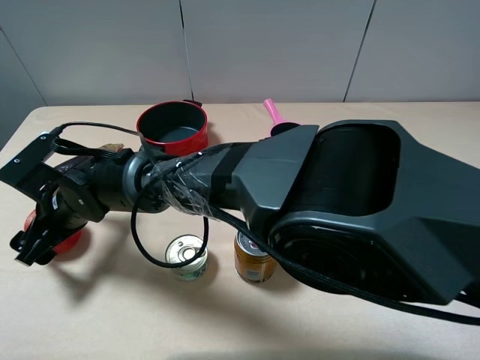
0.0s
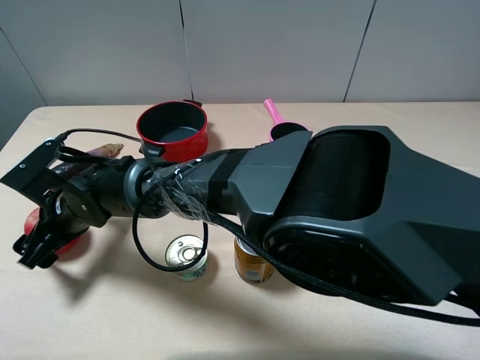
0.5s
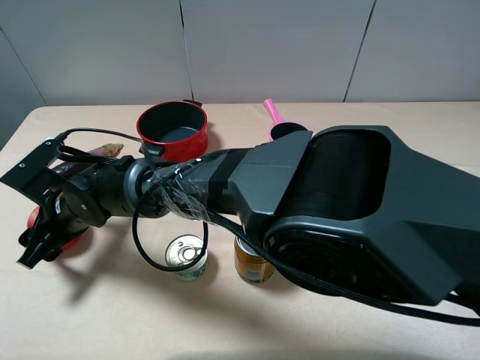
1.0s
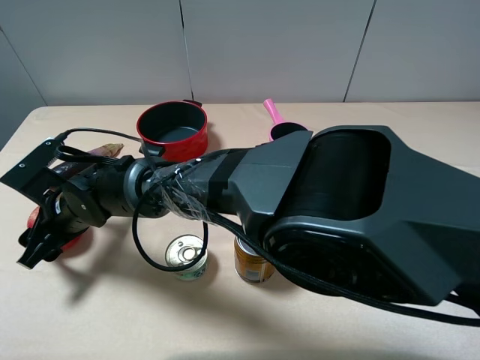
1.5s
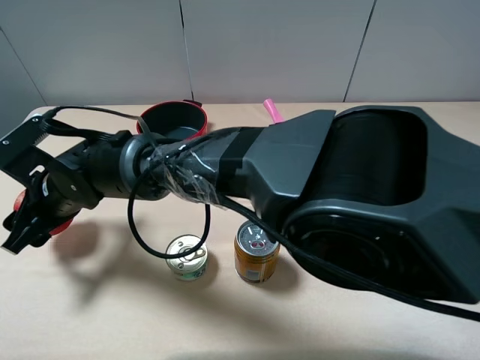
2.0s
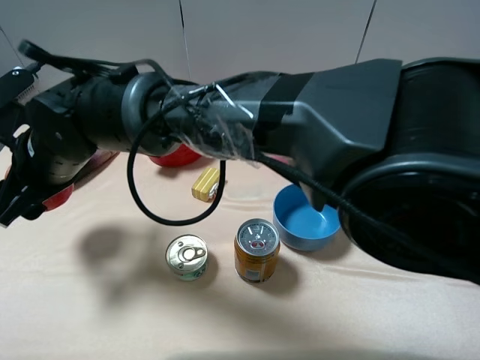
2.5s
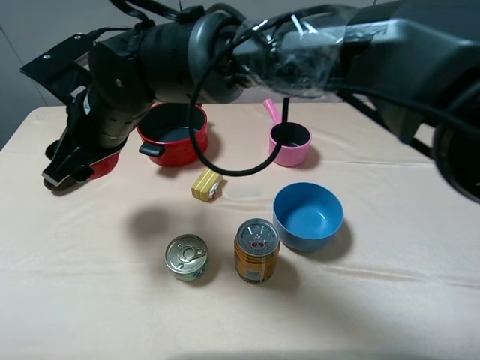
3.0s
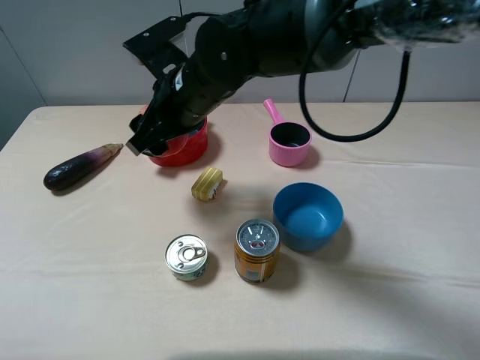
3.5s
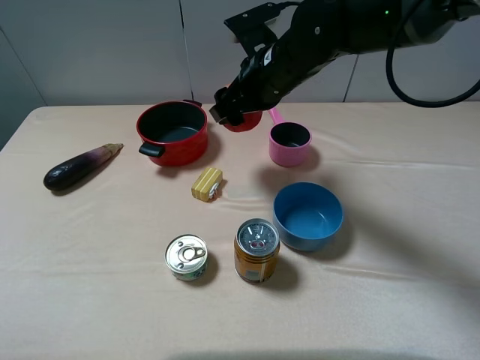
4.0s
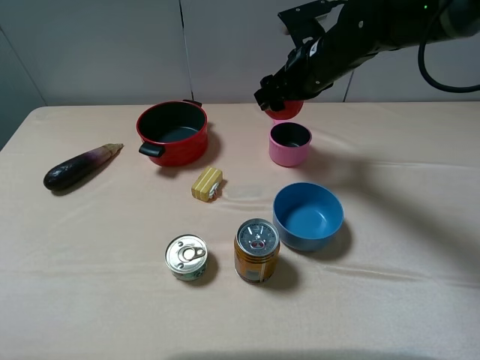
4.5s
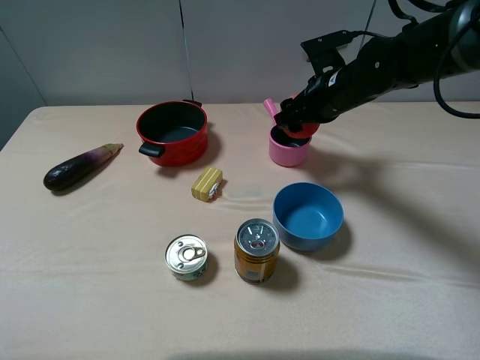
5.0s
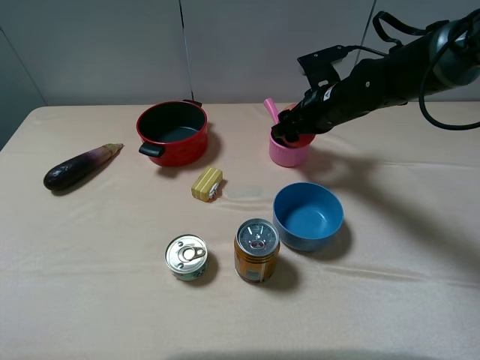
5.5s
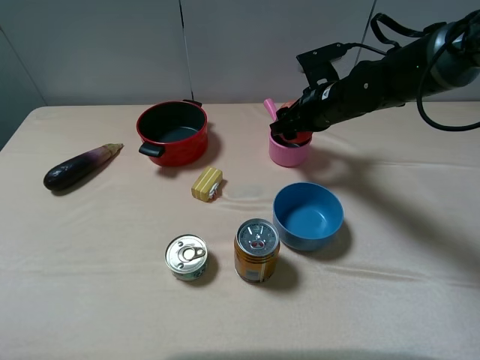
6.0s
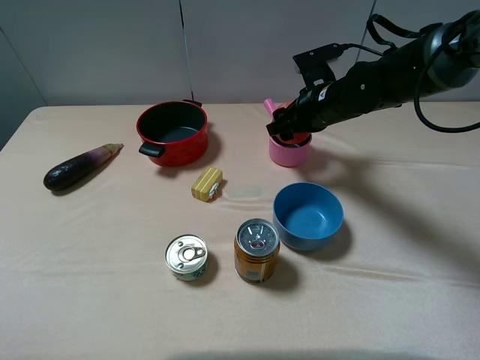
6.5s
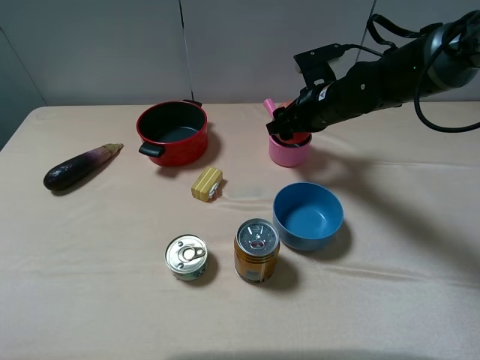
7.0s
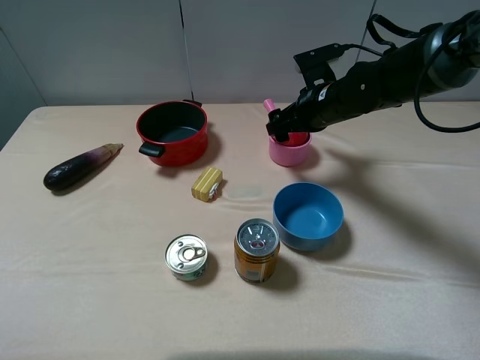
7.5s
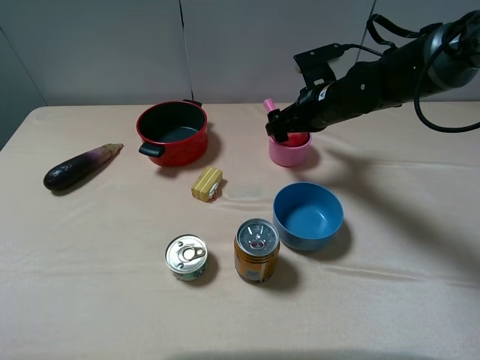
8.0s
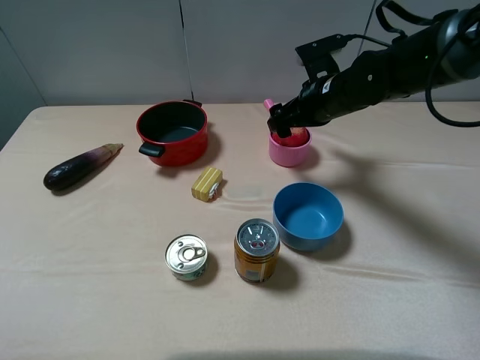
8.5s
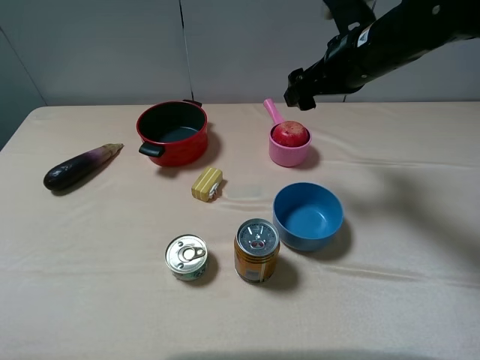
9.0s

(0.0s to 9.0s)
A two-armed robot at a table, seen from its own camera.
Task of the whole recording: pick up an item with a gripper and place it in a random container on the table.
Step, 1.5s - 8.0s: Place the apple into the pink pot with the right gripper.
0.0s - 2.0s: The right gripper closes its fingers.
2.0s - 4.5s: The right gripper goes roughly 35 cm to the right and forward.
4.5s - 7.0s: The right gripper travels downward by roughly 5 cm.
7.0s - 9.0s: The right gripper goes roughly 10 cm upward, and opens up.

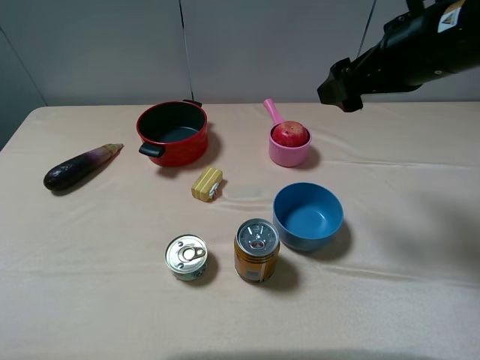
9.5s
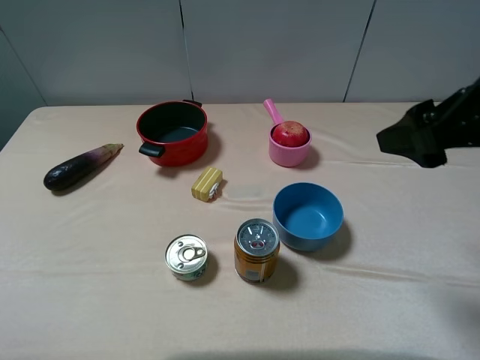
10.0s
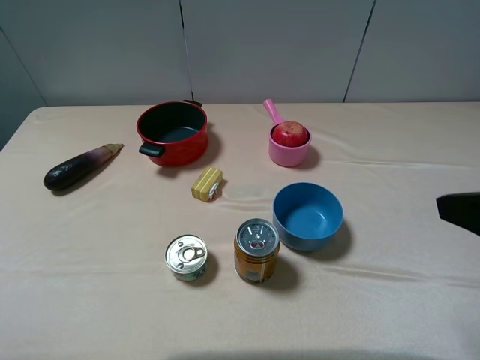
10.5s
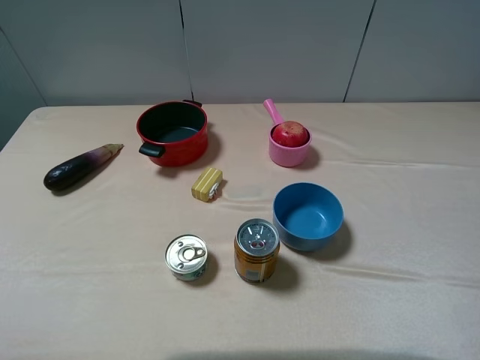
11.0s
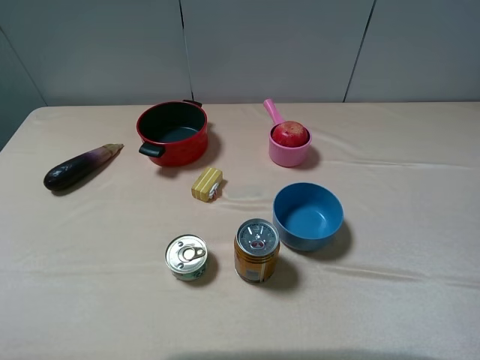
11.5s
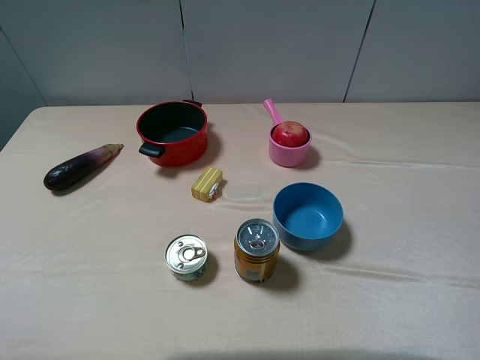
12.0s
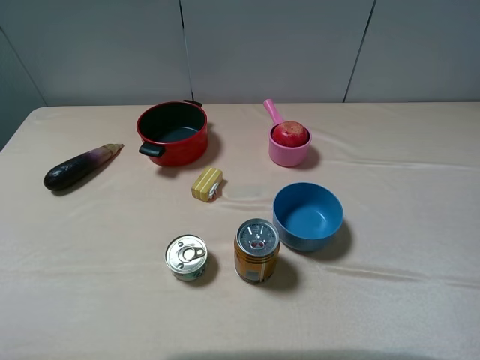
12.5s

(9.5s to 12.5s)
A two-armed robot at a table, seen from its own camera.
Task of the whole recording: pick up an item with a gripper and place it in a random container on the table.
9.5s - 11.0s: The right gripper moves backward and to the right, roughly 25 cm.

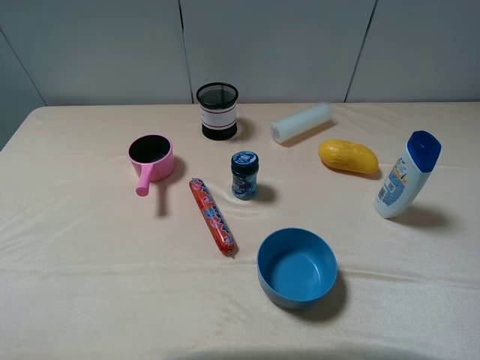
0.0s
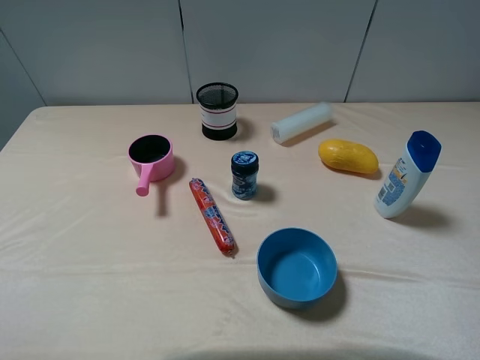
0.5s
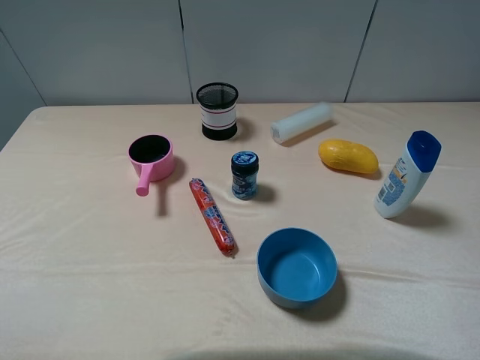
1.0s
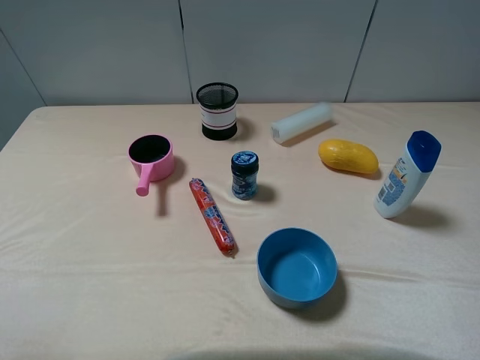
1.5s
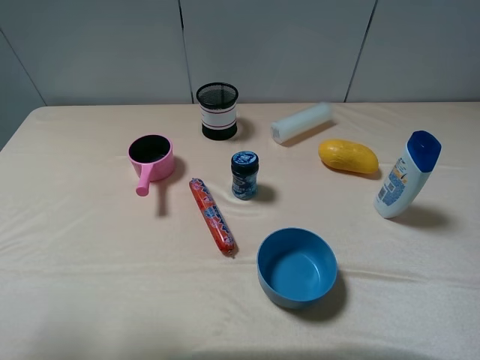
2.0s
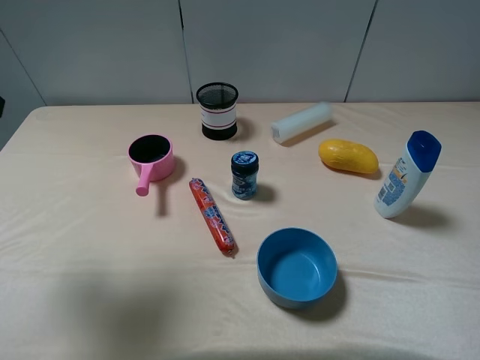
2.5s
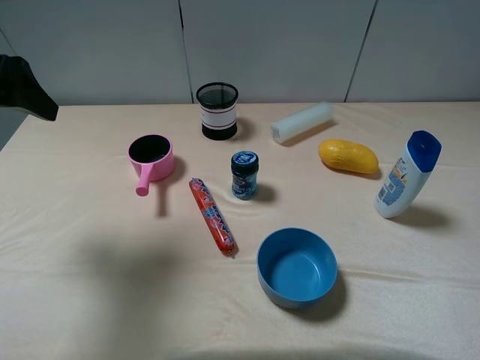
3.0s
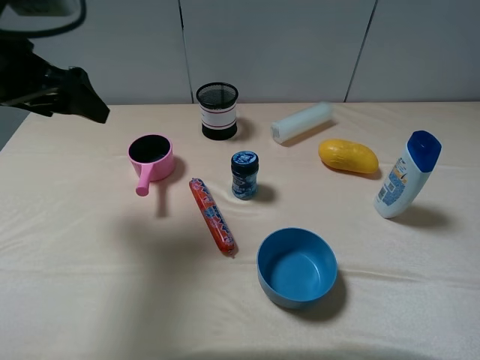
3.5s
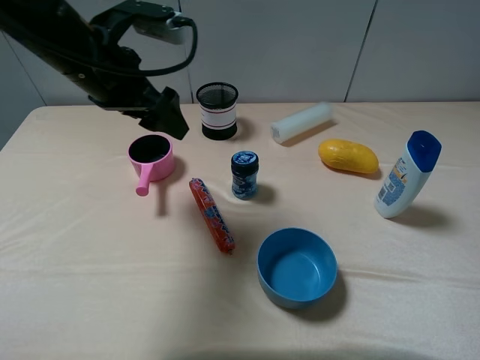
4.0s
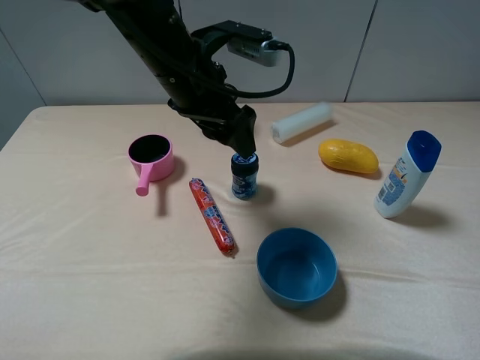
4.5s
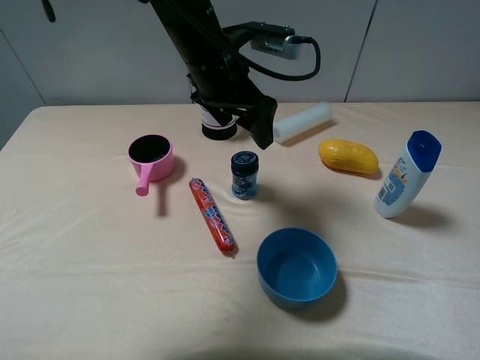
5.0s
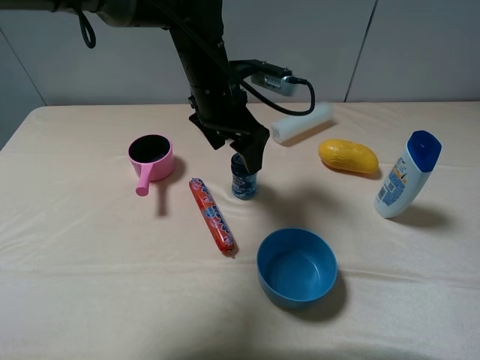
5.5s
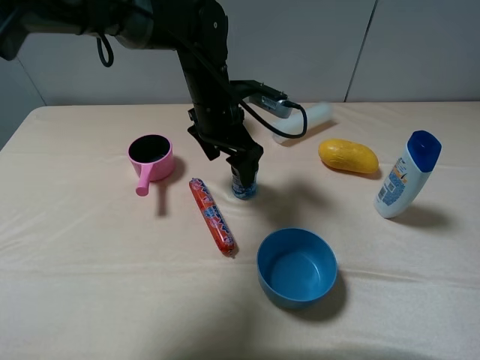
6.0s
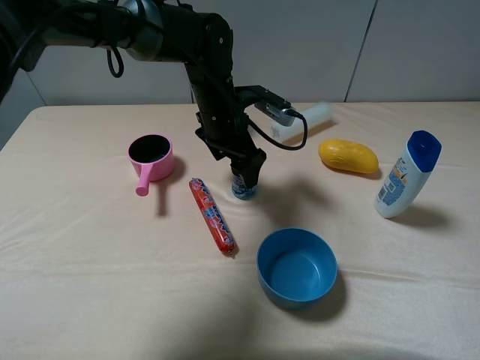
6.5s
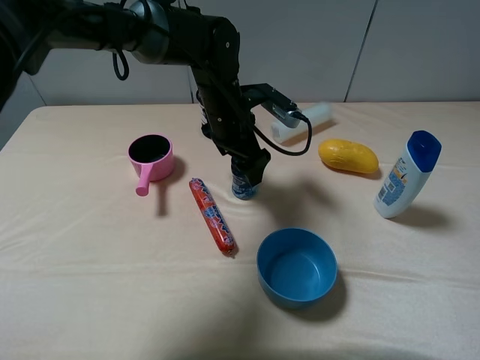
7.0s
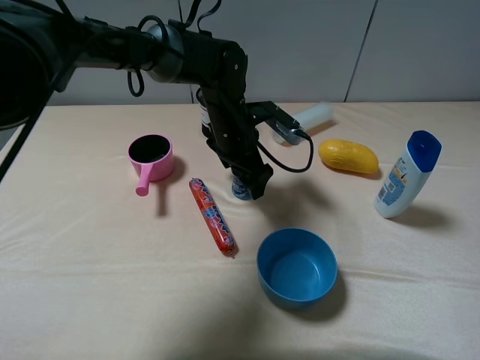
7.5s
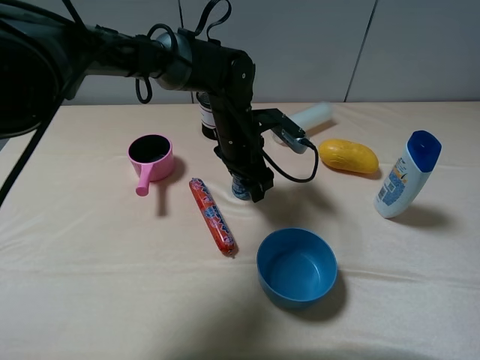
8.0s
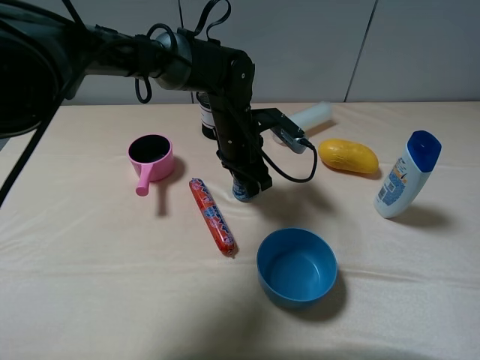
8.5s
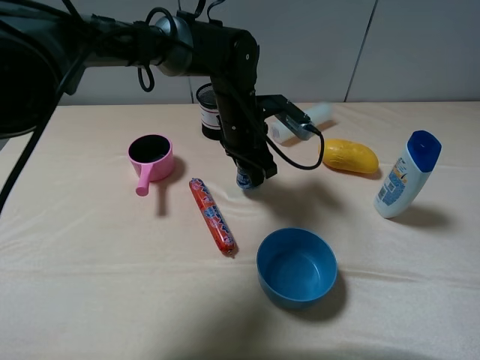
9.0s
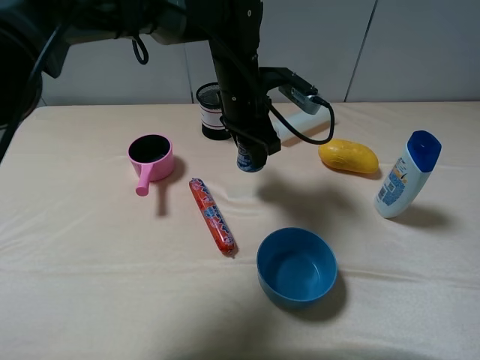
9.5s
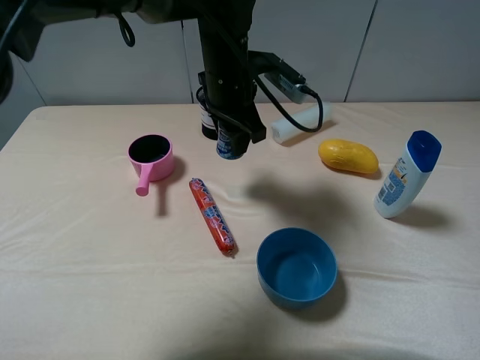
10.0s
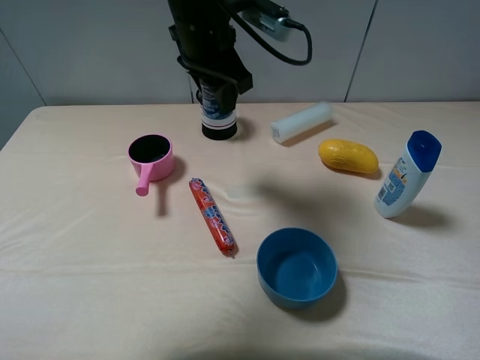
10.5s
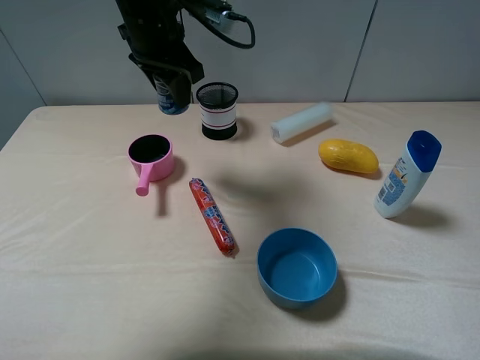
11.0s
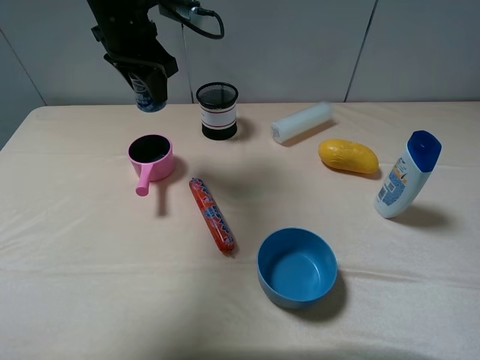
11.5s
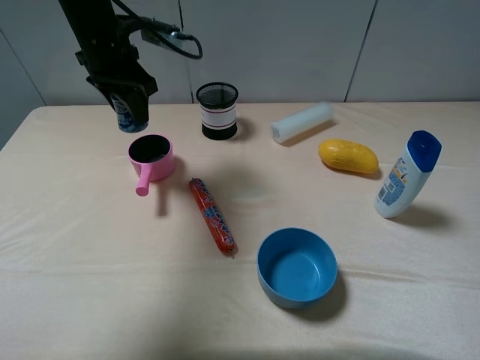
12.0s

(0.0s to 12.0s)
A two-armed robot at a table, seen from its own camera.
Task of the whole recording: pick up an item with a gripper and place it in a random container on the table.
Step, 0.0s - 8.5s: Grasp the round chewing gum with the left gripper.
0.0s - 2.0s: The left gripper heads forward and upward, covering approximately 10 cm.
2.0s - 4.0s: The left gripper moves forward, to the right and downward, roughly 25 cm.
4.0s - 6.0s: The left gripper goes about 15 cm to the right, downward and forward.
6.0s - 8.0s: The left gripper is displaced downward by some 5 cm, and closes.
8.0s - 10.0s: The left gripper is displaced upward by roughly 10 cm, and closes.
10.0s - 12.0s: The left gripper heads to the left, covering approximately 15 cm.

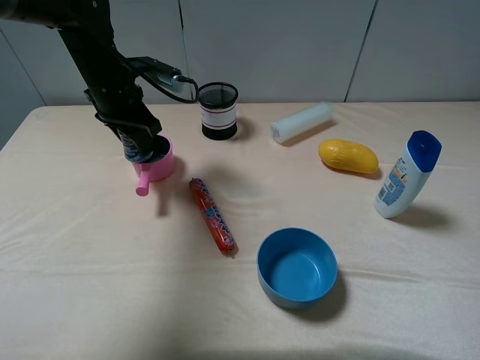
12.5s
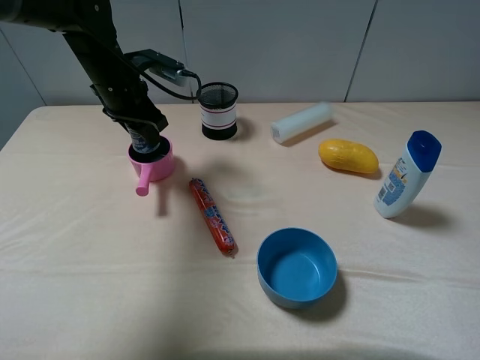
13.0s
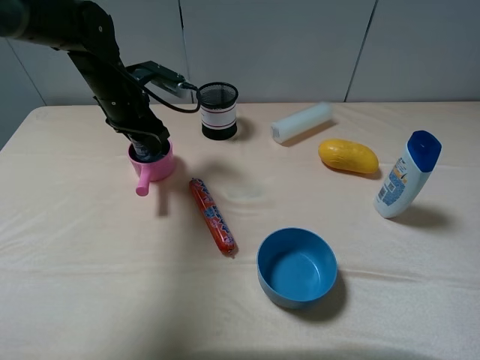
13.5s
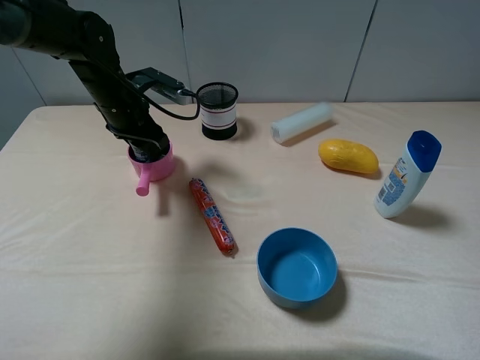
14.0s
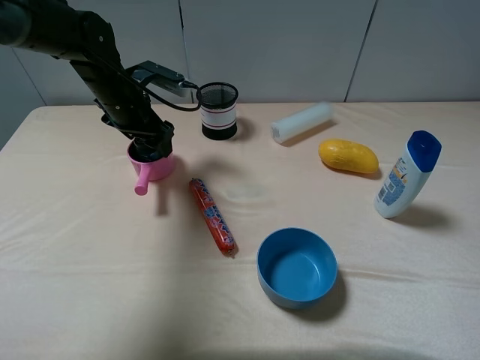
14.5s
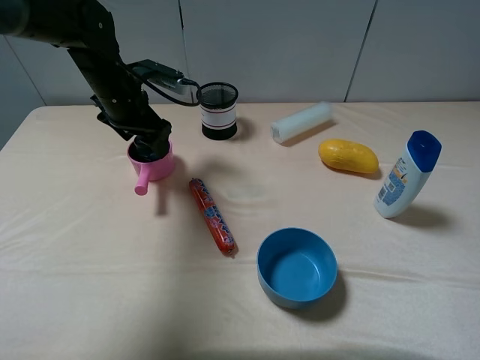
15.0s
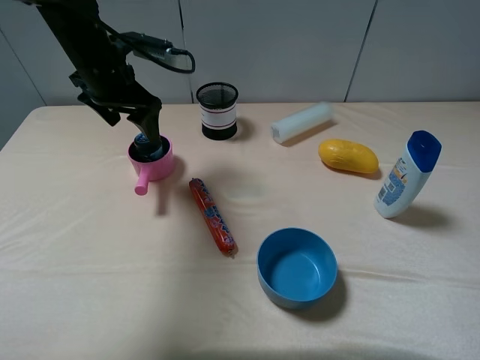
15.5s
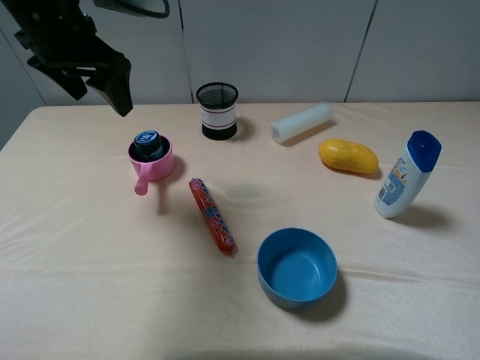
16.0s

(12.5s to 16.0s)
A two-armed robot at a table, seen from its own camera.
Task of the whole recording: pick up an item with a gripper and place it in a random container on the table.
Step, 12.5s - 15.5s: Place the round chewing gum into the pink pot with the left gripper.
12.5s - 14.5s: The left gripper opens its fingers.
14.5s - 16.0s: The left gripper heads upward and backward, covering roughly 15 cm.
